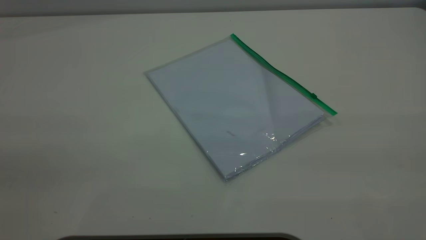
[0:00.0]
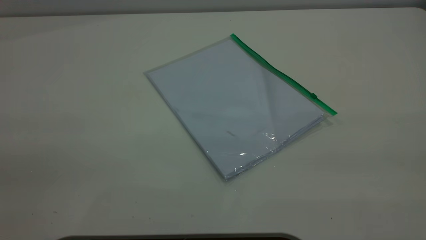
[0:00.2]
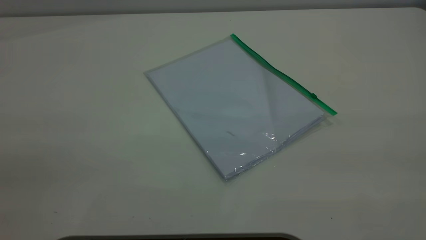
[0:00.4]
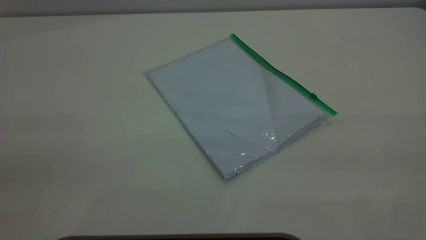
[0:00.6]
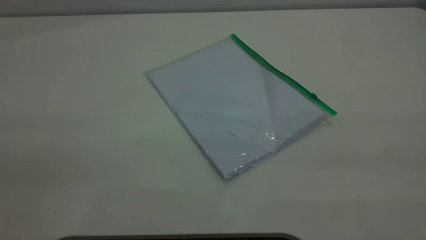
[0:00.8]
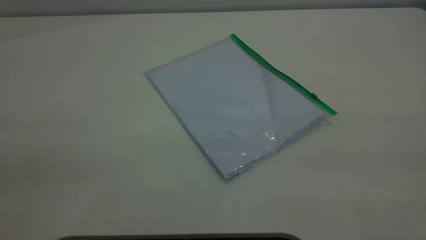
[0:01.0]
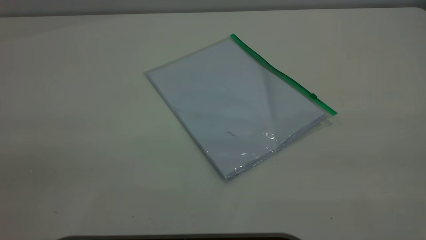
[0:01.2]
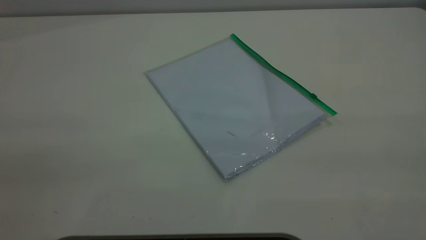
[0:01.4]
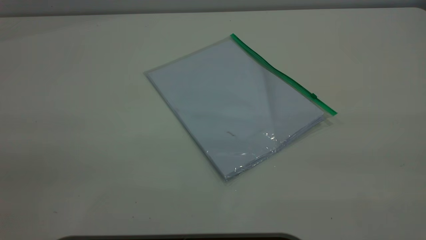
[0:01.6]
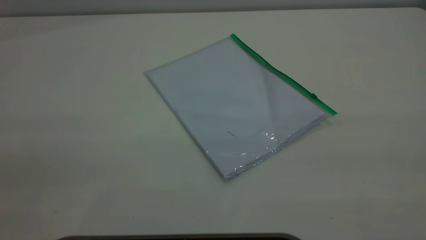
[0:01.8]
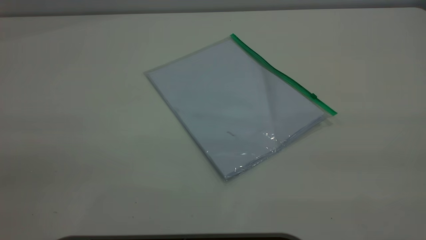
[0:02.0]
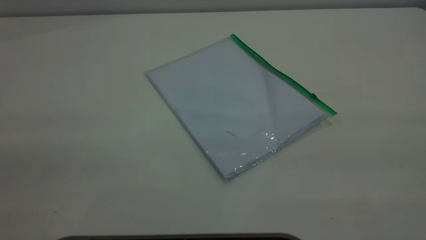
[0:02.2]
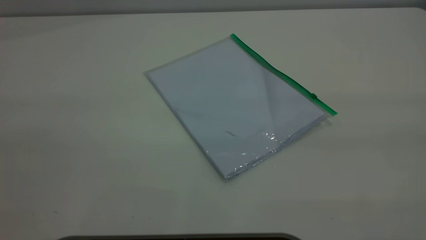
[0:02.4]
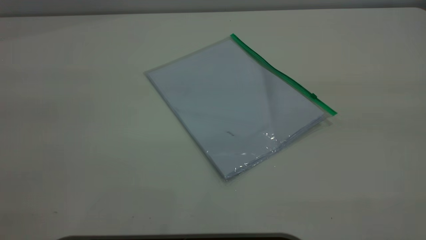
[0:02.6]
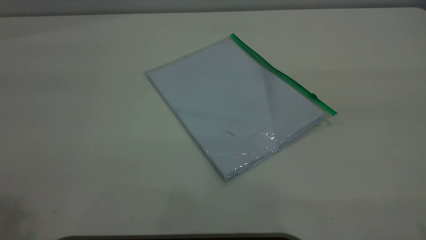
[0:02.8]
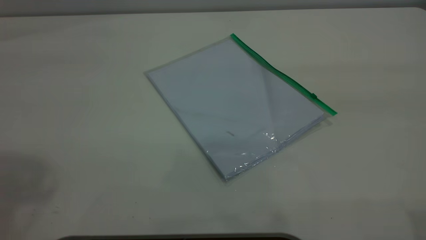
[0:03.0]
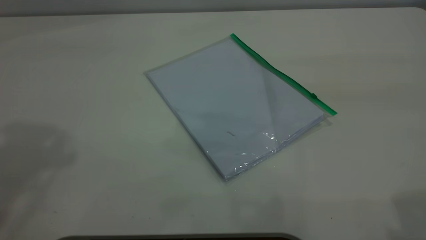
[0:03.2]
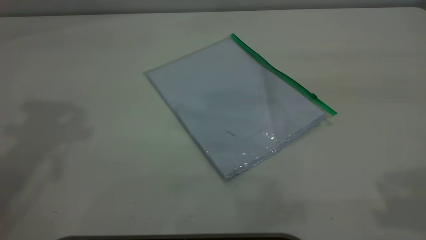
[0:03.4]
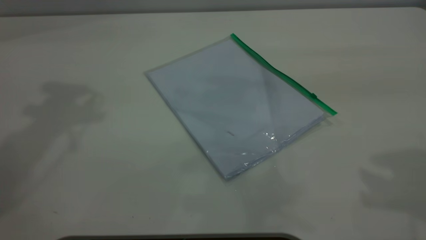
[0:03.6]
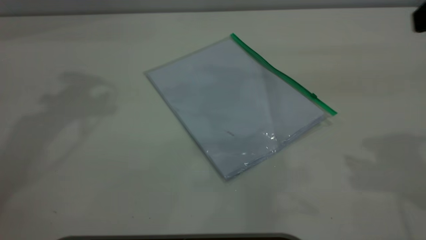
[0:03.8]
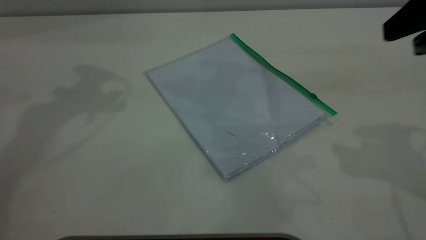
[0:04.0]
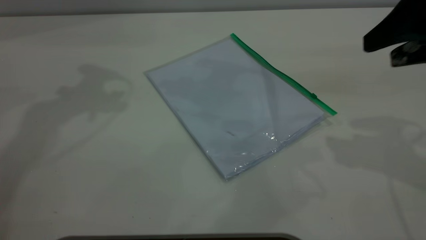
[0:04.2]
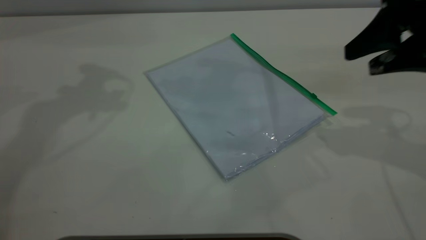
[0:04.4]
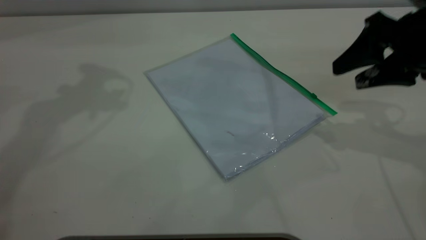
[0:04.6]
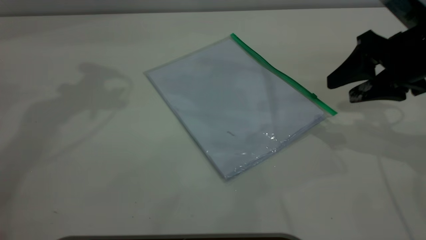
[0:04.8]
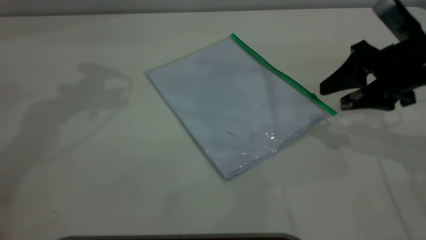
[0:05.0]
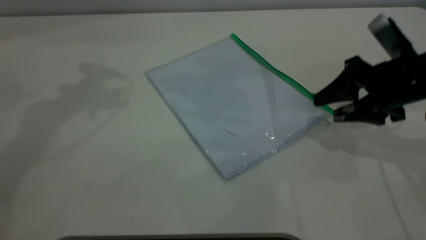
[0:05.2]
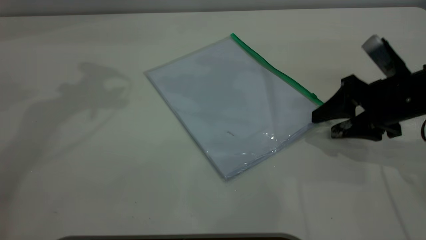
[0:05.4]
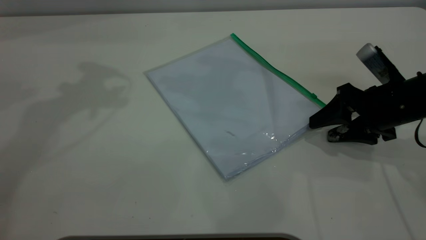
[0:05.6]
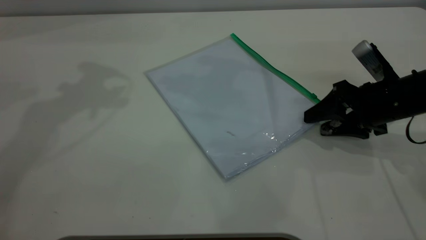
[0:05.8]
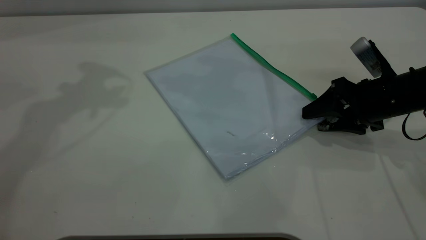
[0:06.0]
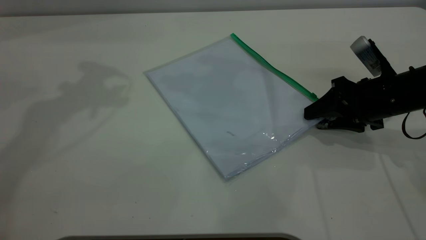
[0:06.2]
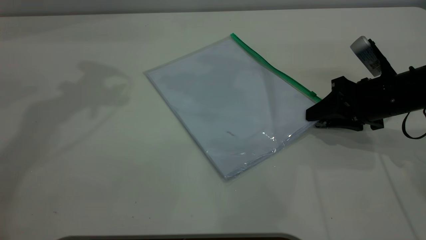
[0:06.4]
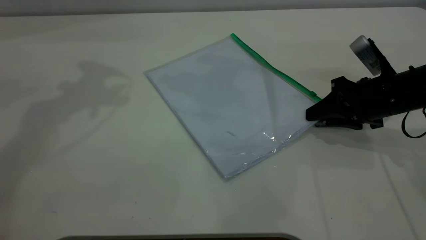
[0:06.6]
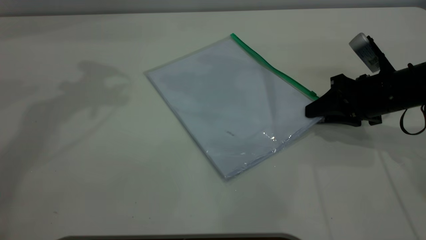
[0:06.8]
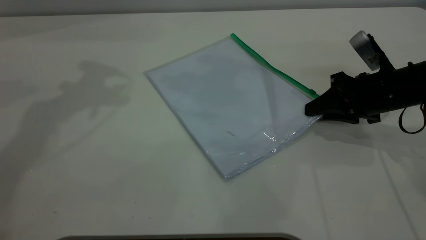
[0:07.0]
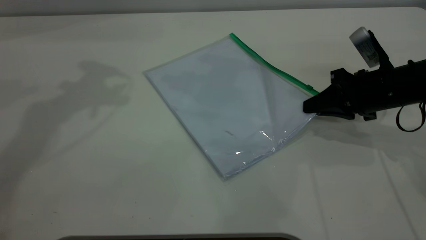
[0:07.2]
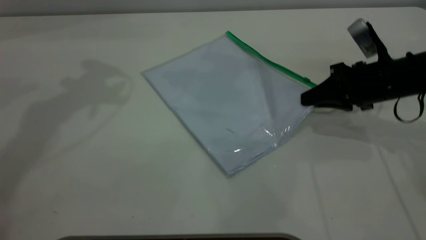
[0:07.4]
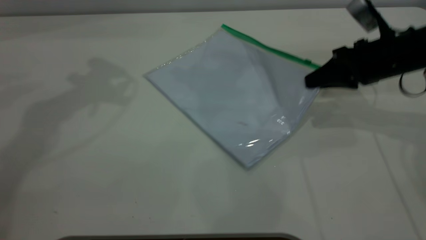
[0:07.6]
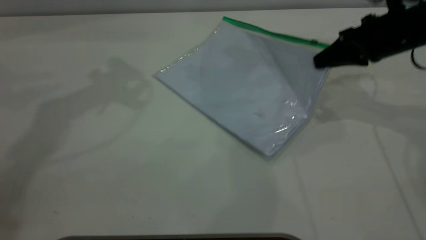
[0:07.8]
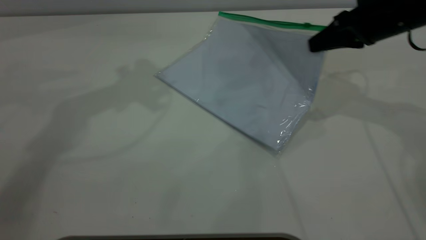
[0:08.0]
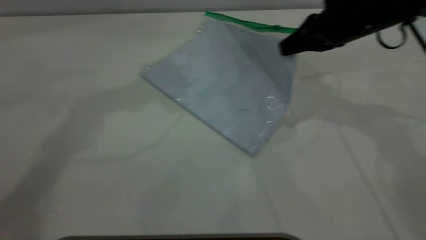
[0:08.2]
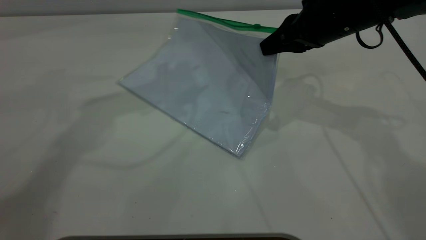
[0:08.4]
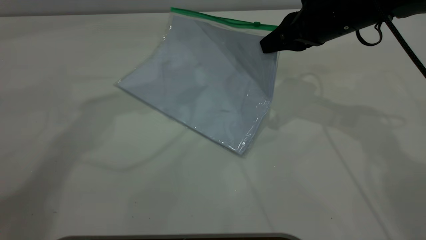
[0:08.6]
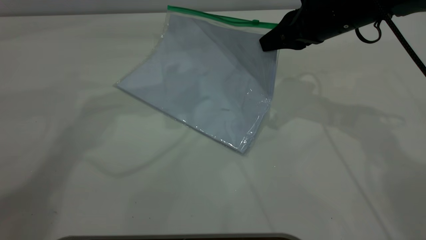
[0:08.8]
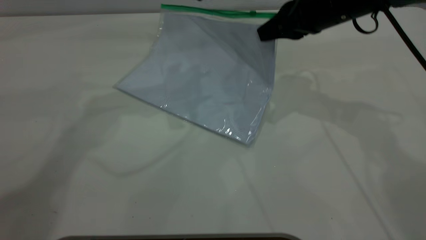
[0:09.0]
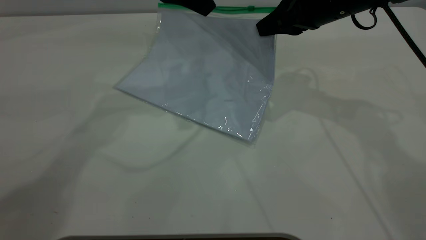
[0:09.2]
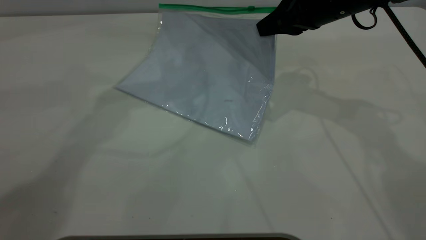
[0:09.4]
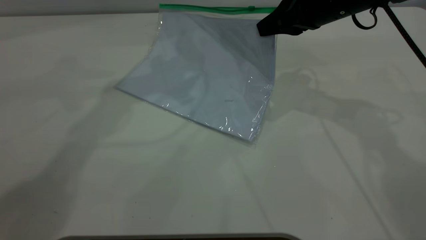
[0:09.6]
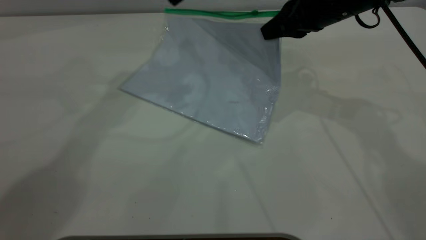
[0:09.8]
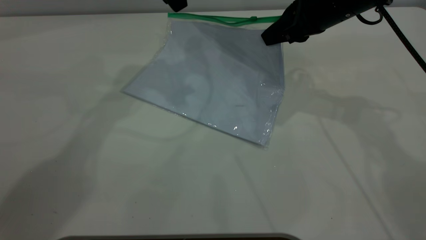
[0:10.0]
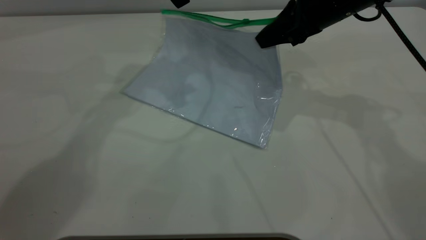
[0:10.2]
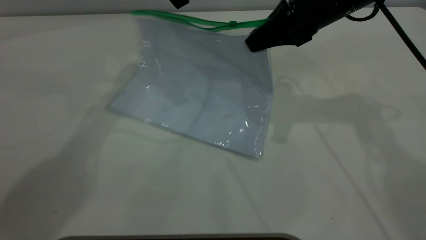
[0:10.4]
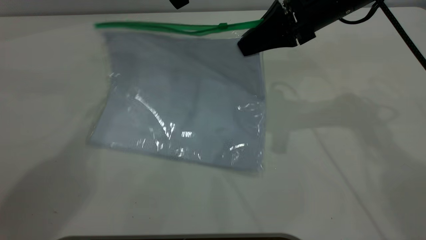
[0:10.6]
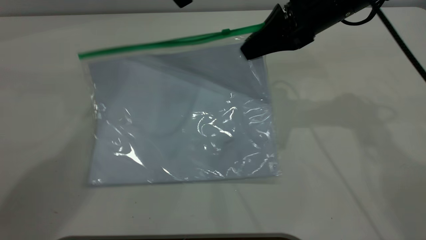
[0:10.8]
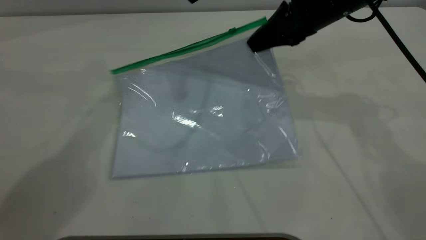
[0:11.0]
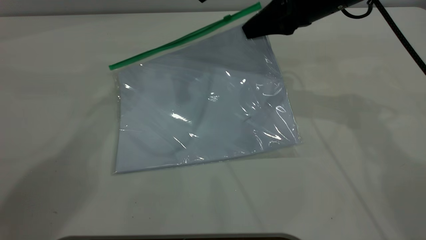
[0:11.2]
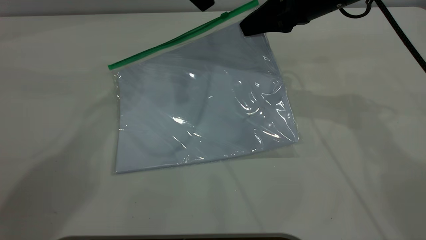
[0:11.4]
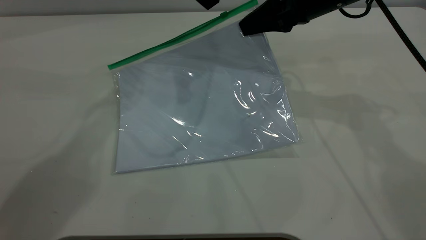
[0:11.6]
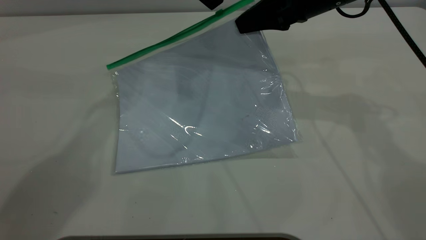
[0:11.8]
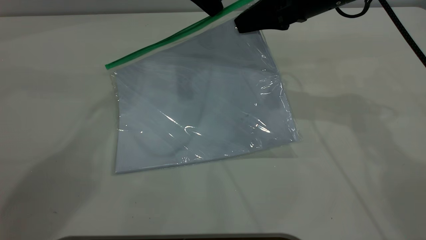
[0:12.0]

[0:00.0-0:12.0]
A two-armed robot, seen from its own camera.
Step, 0:00.0 to 0:07.4: Pick up the transparent plastic bag with the right gripper.
0:00.0 to 0:01.6: The two grippers keep their place.
0:03.0 to 0:04.4: The right gripper shifts approximately 25 cm forward and downward.
0:04.4 to 0:06.0: The right gripper heads downward, covering some 15 cm.
0:06.0 to 0:07.6: The right gripper travels upward by about 5 cm, and closes its fingers.
0:07.6 to 0:09.0: The right gripper heads to the left and upward, covering roughly 10 cm. The left gripper heads to the right and downward, covering roughly 15 cm.
0:09.0 to 0:10.4: The left gripper moves forward, approximately 5 cm.

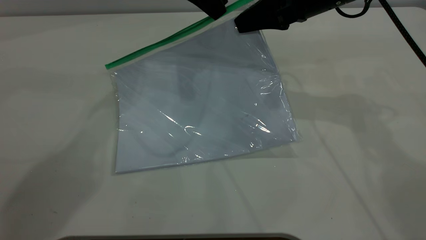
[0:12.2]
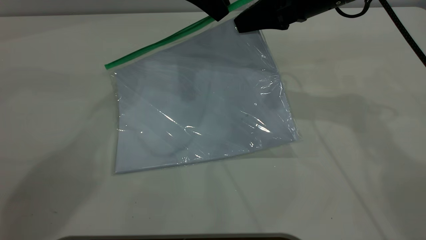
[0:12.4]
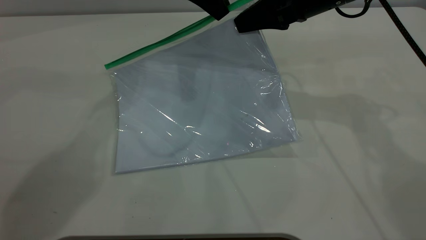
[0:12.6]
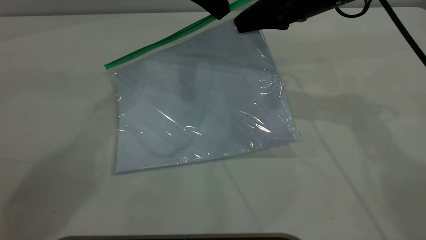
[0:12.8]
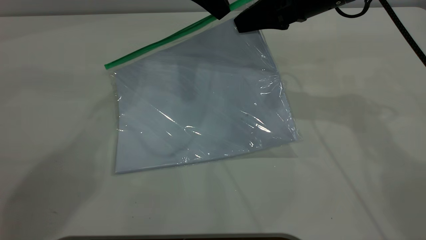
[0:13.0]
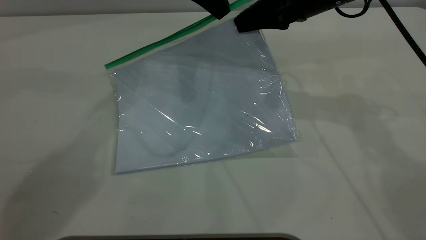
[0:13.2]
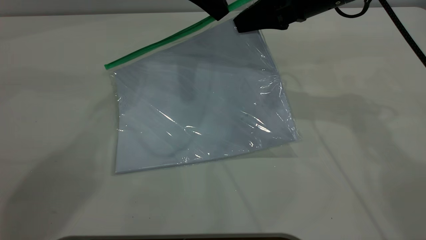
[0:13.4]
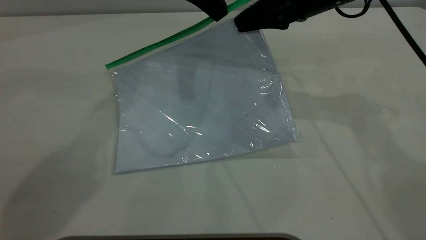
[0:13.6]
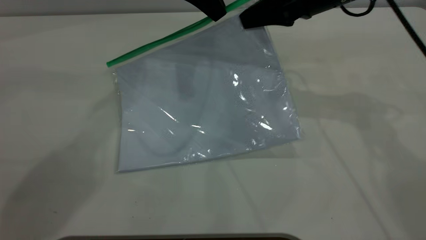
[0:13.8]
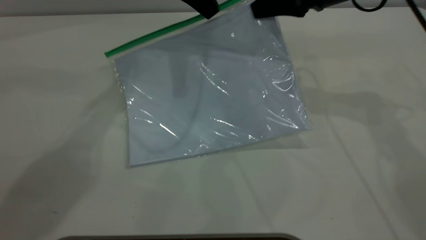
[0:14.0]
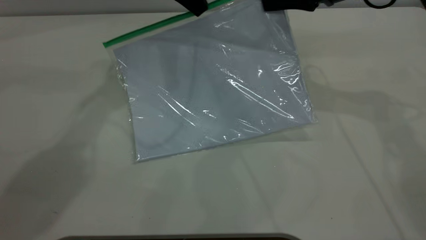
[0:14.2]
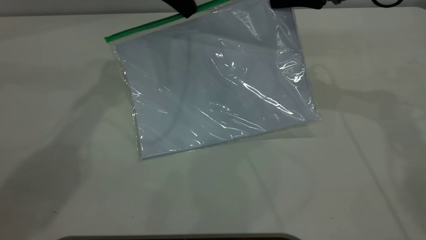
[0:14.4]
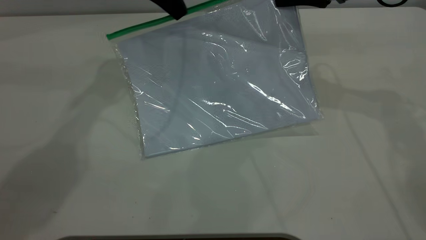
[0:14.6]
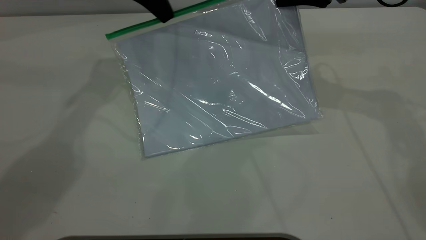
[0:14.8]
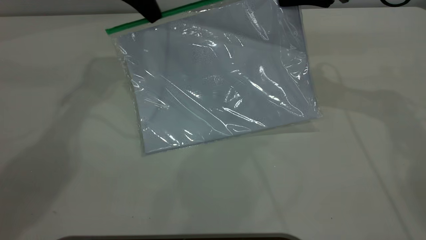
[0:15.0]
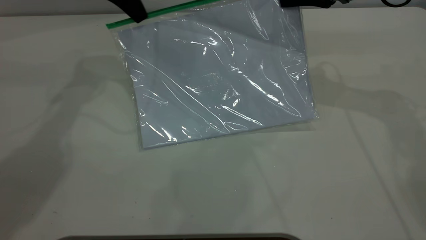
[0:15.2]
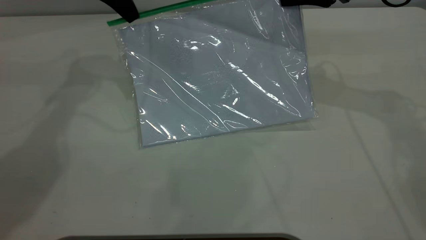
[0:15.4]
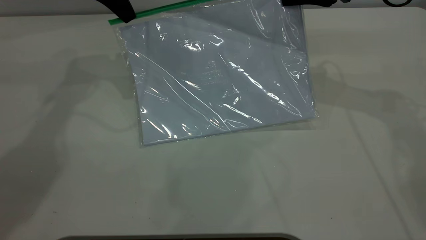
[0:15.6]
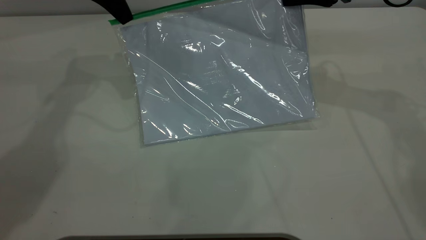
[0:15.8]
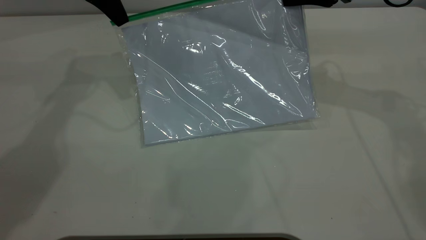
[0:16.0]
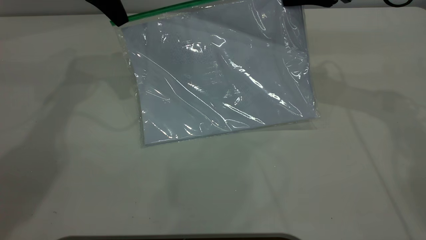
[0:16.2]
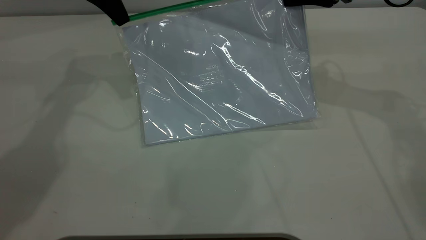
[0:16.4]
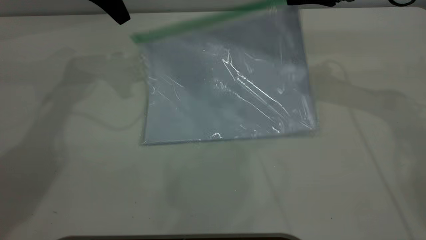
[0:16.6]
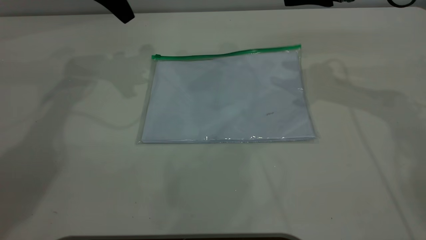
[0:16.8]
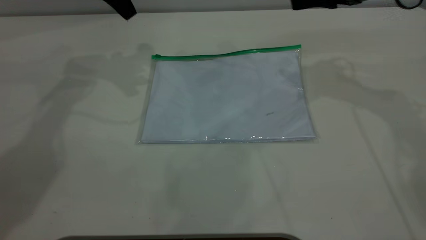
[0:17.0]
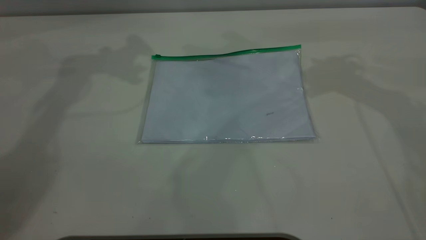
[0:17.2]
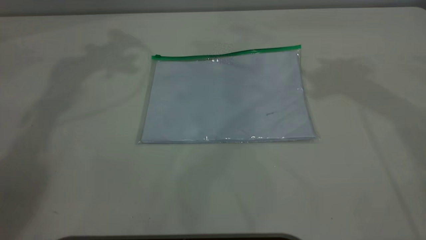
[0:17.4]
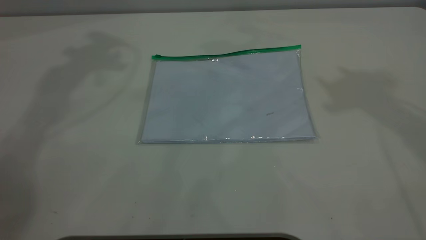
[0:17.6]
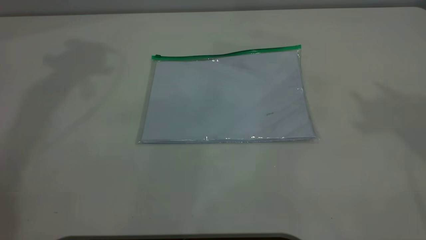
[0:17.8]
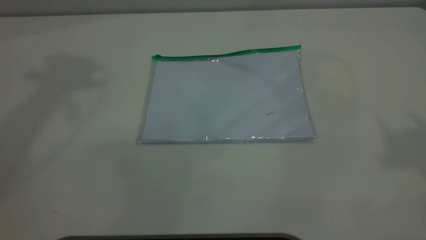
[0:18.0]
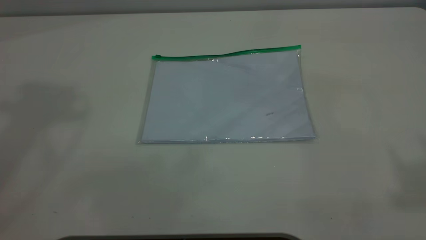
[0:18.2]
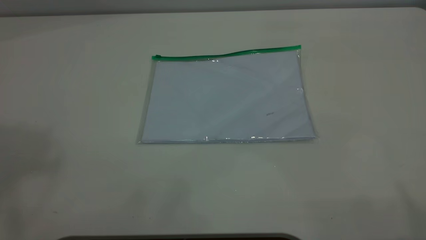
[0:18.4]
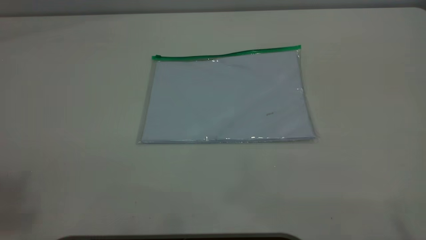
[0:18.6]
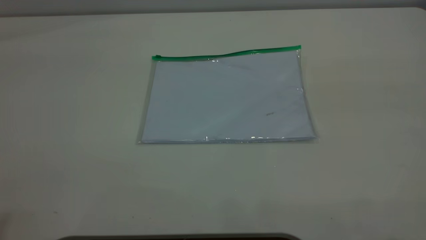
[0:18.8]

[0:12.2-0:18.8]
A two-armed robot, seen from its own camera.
Step, 0:12.2 to 0:16.4: Pulling up the zipper on the transparent plastic bag with the left gripper to close it.
0:12.2 to 0:13.8: The left gripper closes.
0:13.8 to 0:15.4: The right gripper is displaced to the right by approximately 5 cm; the left gripper heads to the left, covering approximately 10 cm.
0:15.4 to 0:17.2: The two grippers go about 5 cm upward. The left gripper opens; the right gripper opens its fingers.
